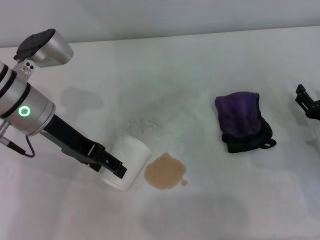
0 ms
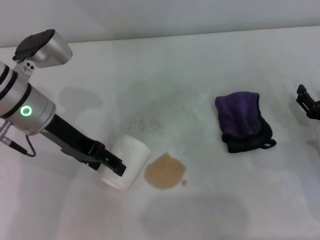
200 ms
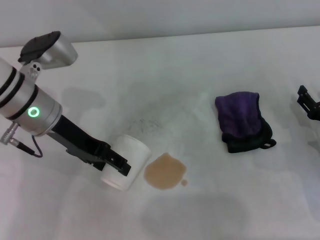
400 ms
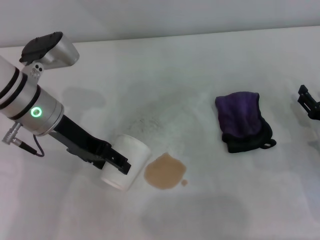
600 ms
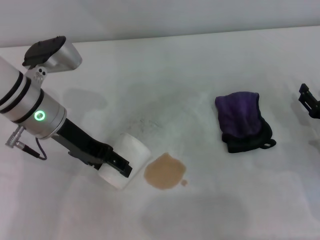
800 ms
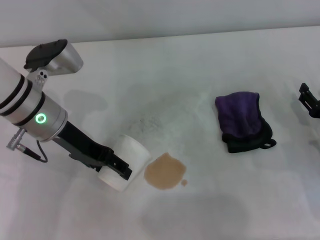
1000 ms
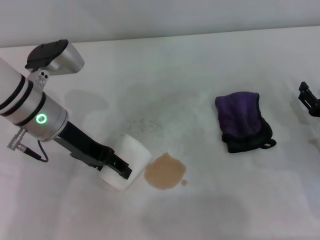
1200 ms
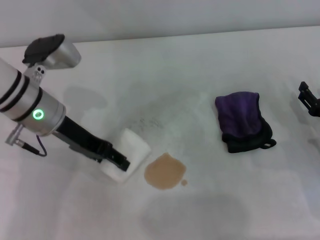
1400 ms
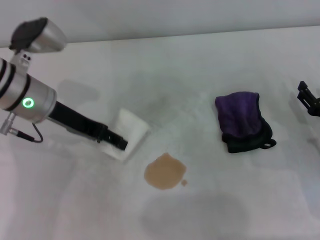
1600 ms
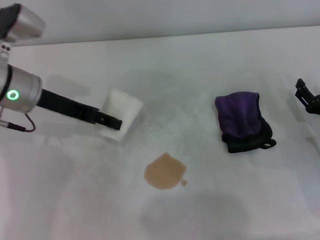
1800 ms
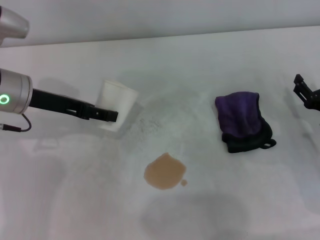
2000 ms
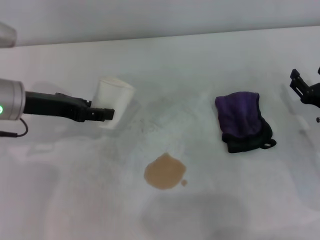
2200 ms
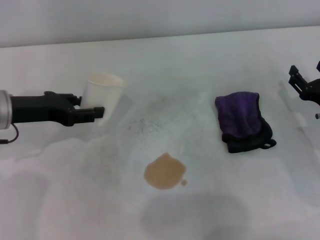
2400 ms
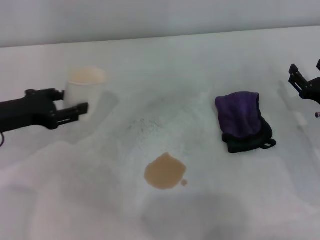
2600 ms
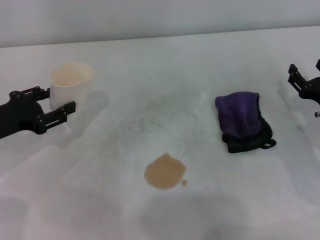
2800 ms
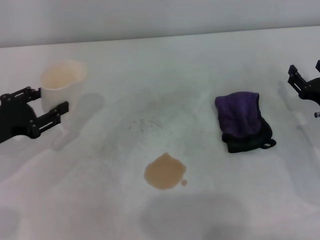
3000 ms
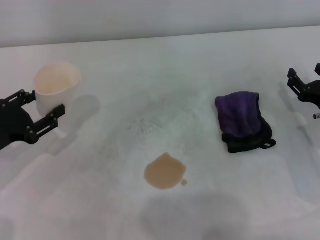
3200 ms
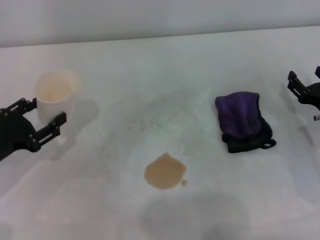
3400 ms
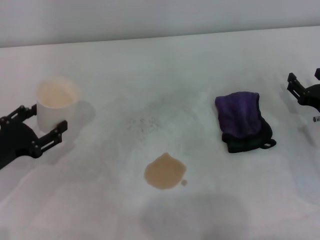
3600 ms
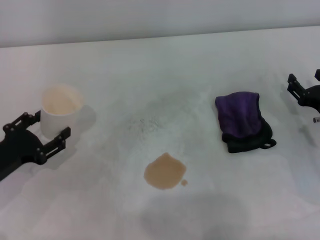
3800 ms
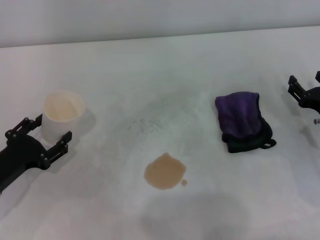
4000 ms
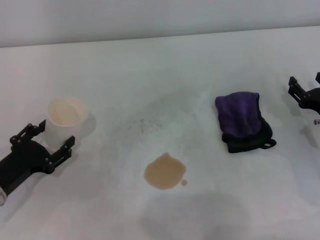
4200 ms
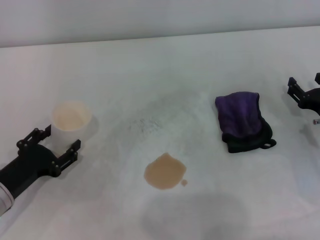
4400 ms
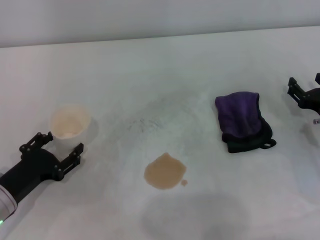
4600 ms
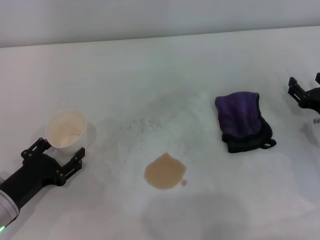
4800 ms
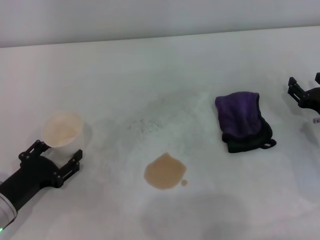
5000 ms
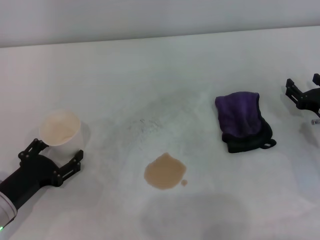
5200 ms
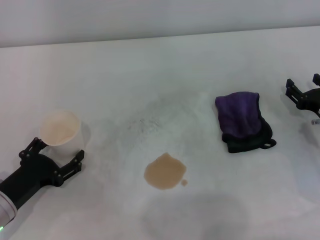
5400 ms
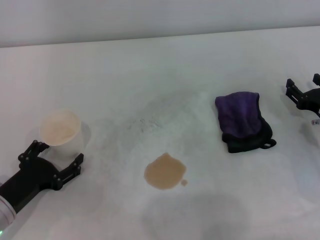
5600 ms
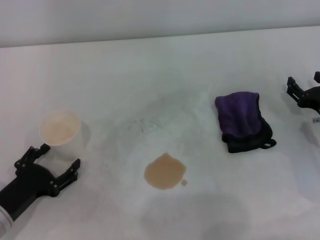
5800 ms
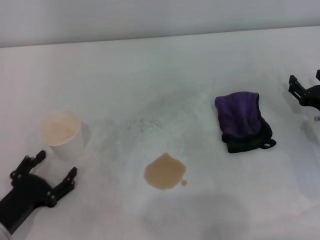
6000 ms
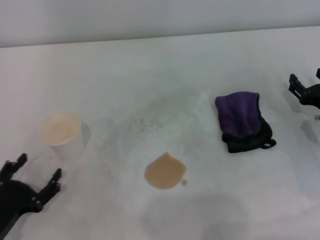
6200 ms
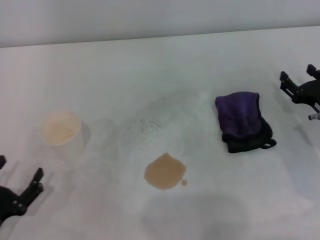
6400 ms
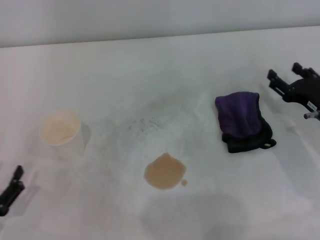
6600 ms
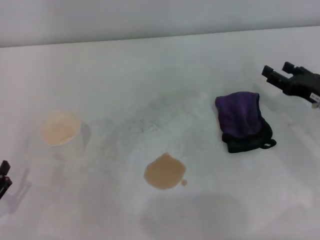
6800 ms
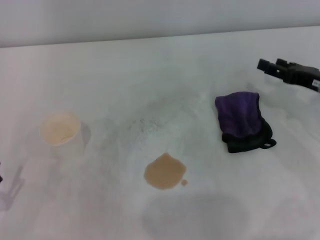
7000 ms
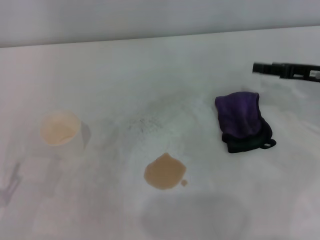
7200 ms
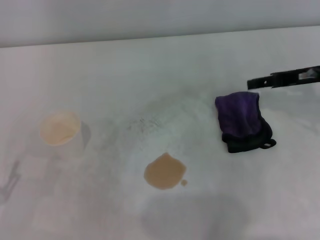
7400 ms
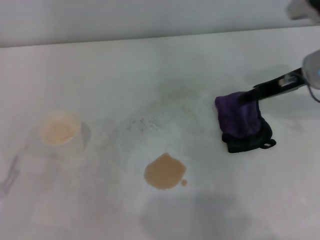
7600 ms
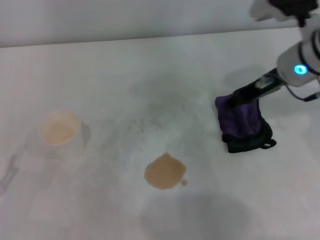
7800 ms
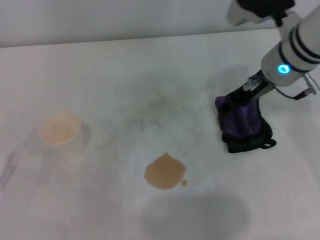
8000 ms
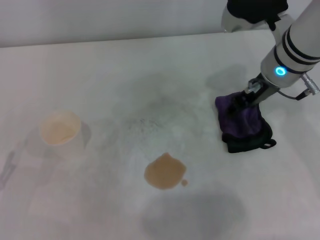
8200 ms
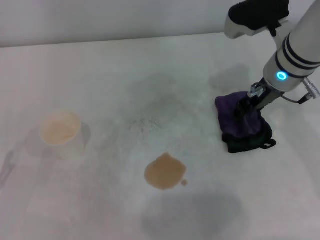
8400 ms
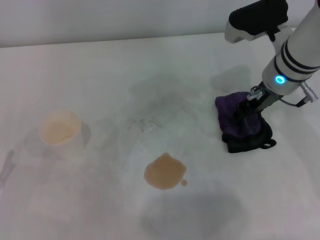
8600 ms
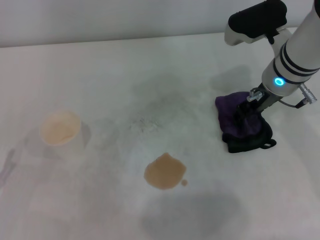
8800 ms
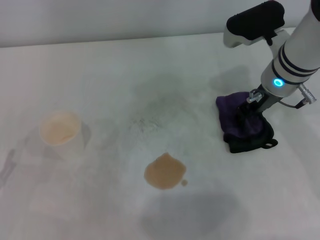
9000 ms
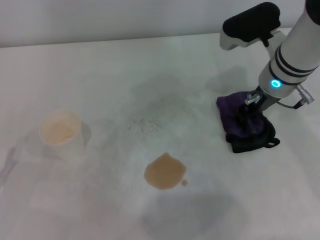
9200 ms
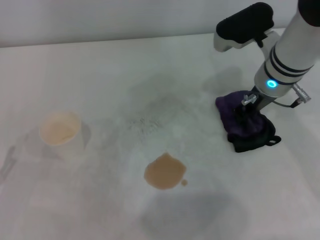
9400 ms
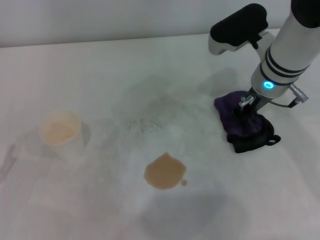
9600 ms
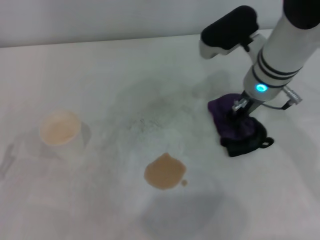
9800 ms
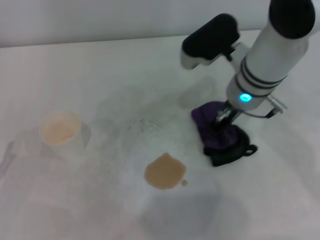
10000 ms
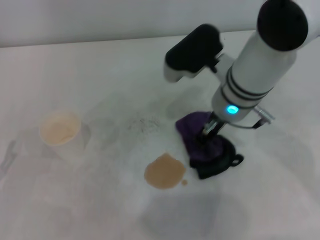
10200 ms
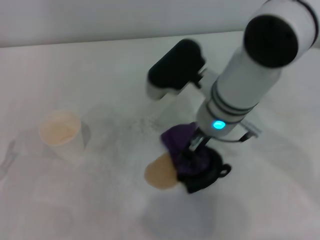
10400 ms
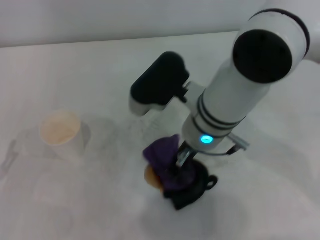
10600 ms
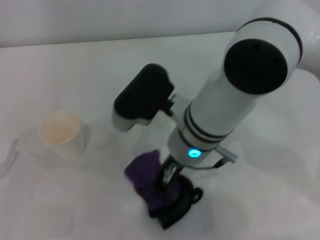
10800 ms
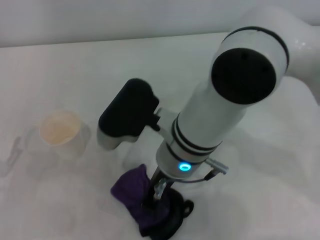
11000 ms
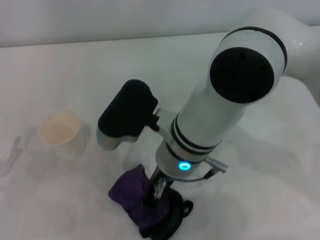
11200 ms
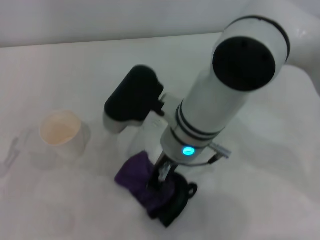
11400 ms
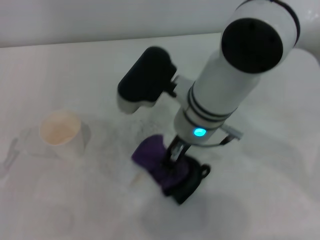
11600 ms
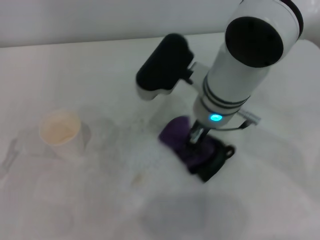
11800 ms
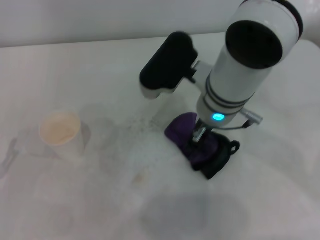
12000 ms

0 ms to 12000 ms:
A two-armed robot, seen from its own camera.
Step, 1200 ms to 5000 ms: Stand the paper cup upright with the left gripper.
Step, 5200 ms to 9400 ms: Grasp the rag with the right gripper.
0 ms to 1600 ms: The left gripper closes up.
1600 ms to 3000 ms: The left gripper is displaced to the left, backward and downward by approximately 15 cm.
3000 ms to 4400 ms: The left gripper shifts about 10 cm downward and backward, and opens.
4400 ms to 6000 ms: The left gripper travels backward by approximately 5 cm, and opens its fingers.
6000 ms to 7600 ms: The right gripper heads upward, forward and to the left, covering approximately 15 cm, while the left gripper goes approximately 5 cm to the left.
7600 ms to 9000 ms: The right gripper heads to the left, covering roughly 5 cm.
9000 ms to 10400 ms: The right gripper goes roughly 10 cm to the left and backward, and closes.

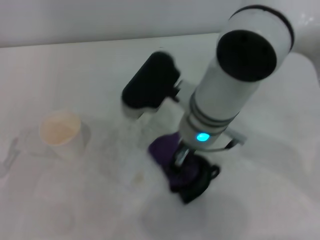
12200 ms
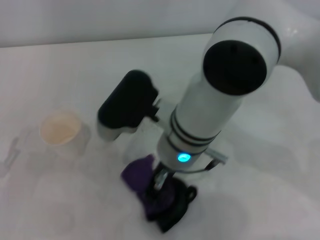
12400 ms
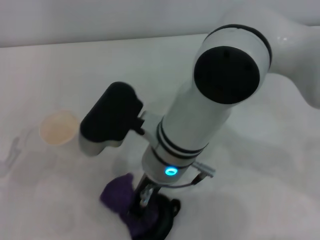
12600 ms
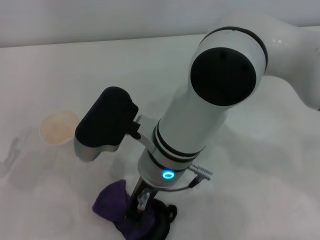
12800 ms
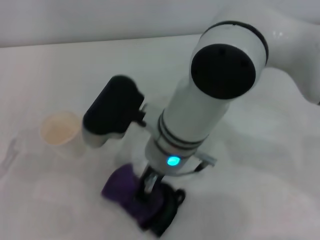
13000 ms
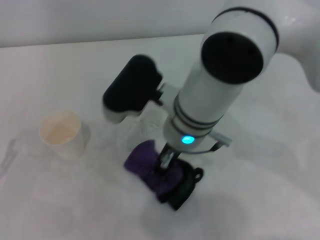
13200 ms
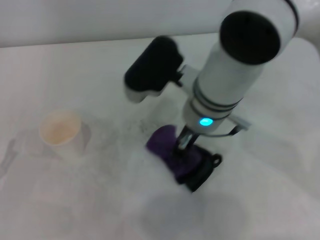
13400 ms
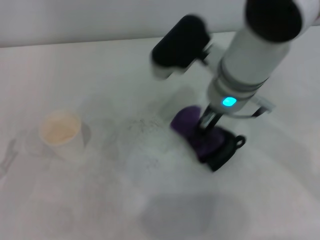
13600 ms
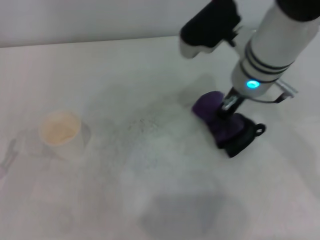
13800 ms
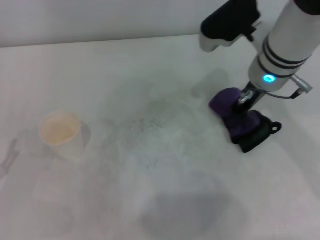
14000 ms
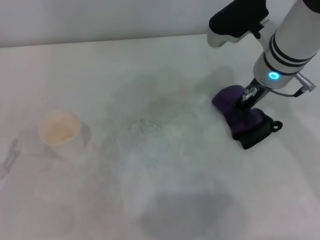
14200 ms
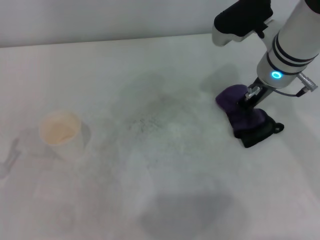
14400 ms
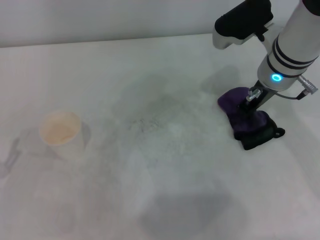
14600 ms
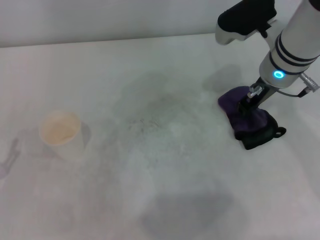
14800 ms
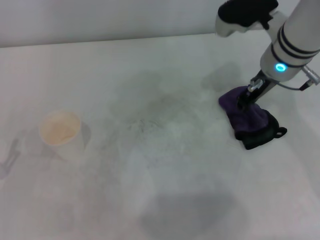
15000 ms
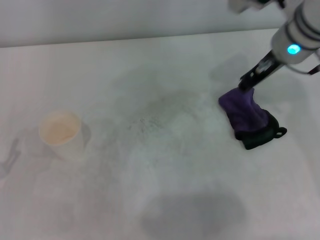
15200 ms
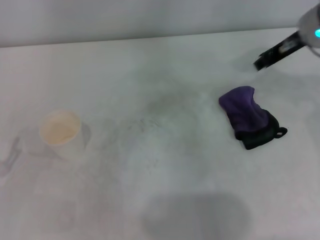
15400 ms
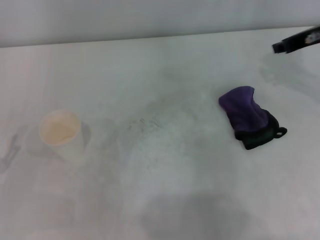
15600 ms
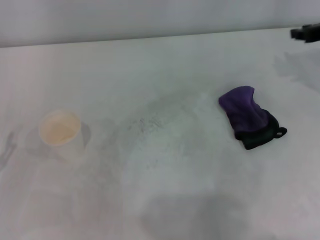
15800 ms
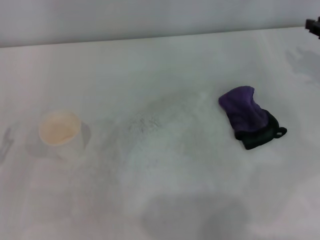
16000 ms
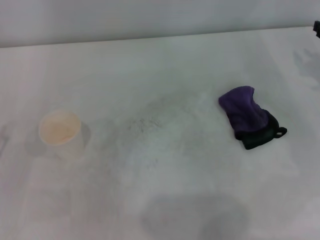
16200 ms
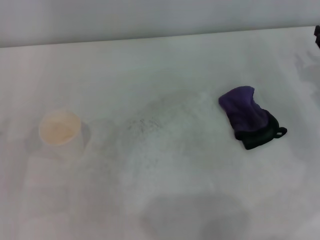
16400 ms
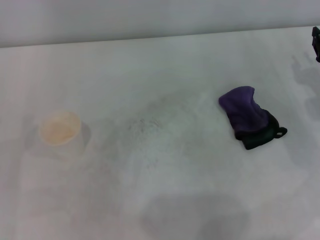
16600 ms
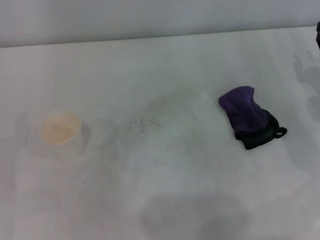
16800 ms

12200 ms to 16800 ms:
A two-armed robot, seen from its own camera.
Step, 14000 ms to 14800 ms: Place the rag on the table with the right gripper.
12200 ms to 13800 ms: The right gripper goes approximately 10 cm to the right.
13800 ms to 15200 ms: The right gripper moves to the right, about 5 cm.
15200 ms to 16800 ms: The right gripper goes some 20 cm to the right, downward and backward.

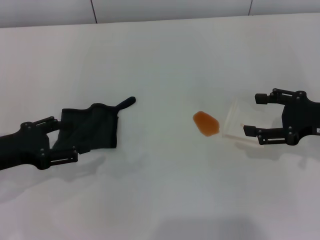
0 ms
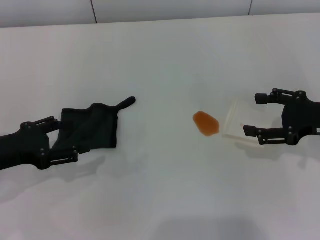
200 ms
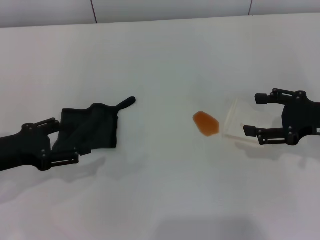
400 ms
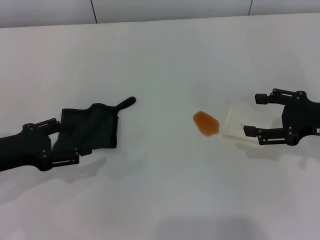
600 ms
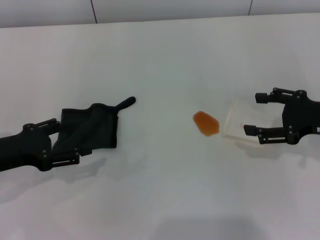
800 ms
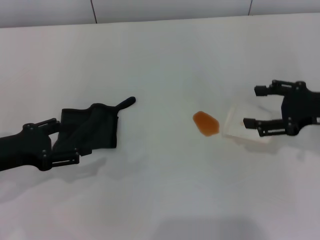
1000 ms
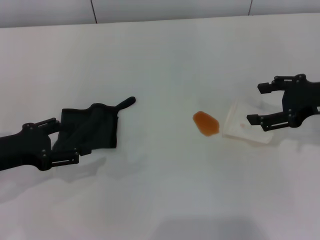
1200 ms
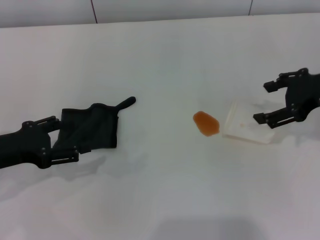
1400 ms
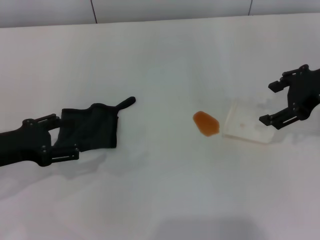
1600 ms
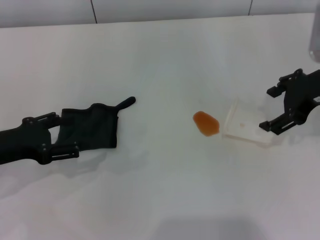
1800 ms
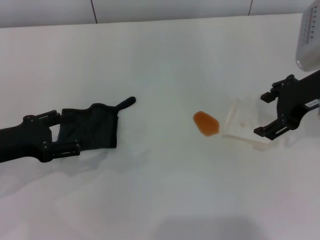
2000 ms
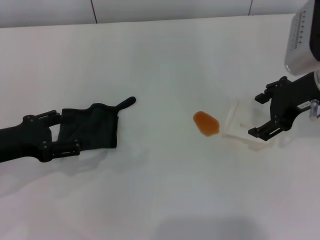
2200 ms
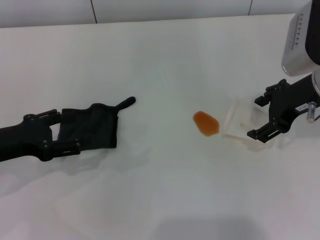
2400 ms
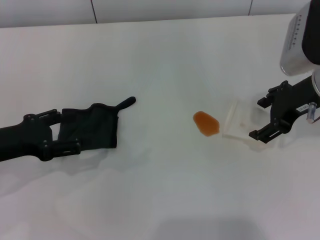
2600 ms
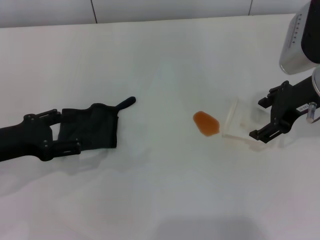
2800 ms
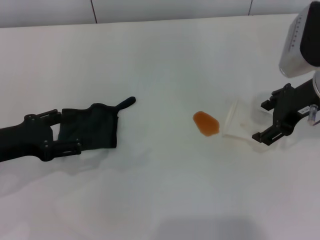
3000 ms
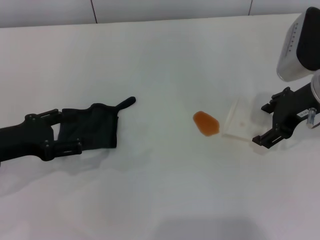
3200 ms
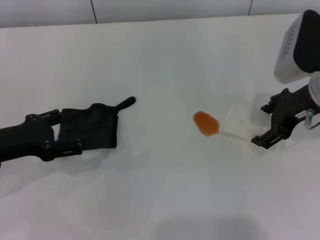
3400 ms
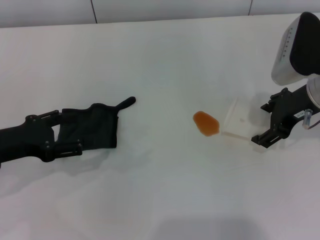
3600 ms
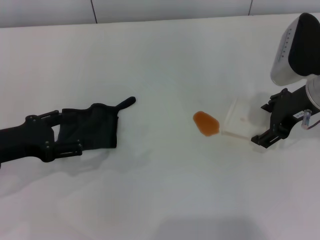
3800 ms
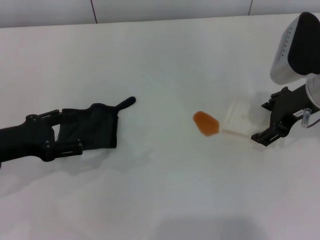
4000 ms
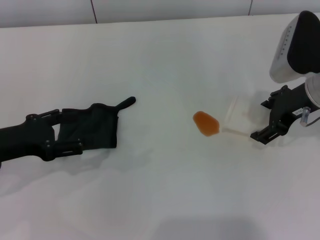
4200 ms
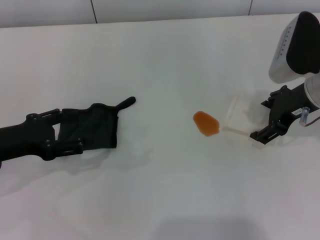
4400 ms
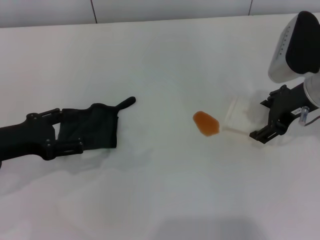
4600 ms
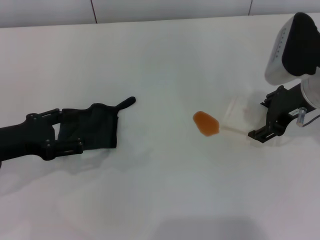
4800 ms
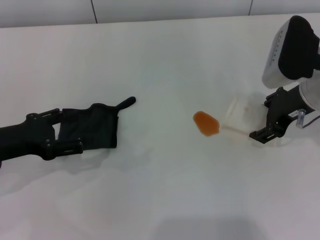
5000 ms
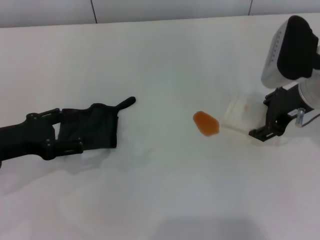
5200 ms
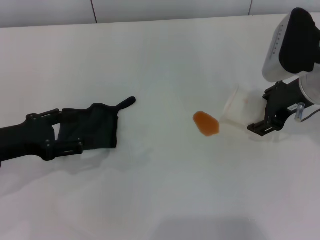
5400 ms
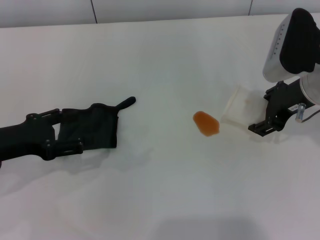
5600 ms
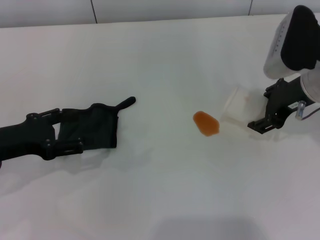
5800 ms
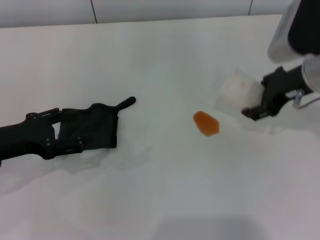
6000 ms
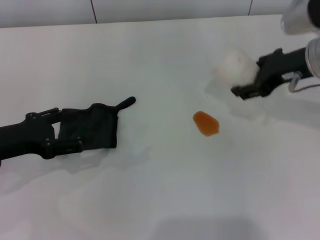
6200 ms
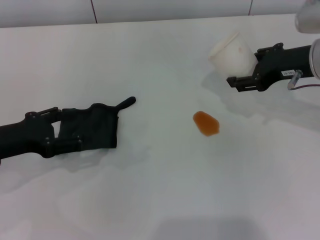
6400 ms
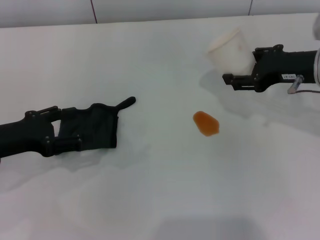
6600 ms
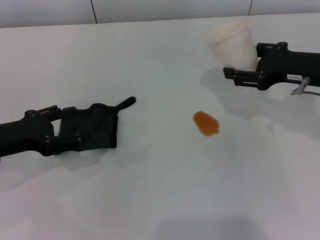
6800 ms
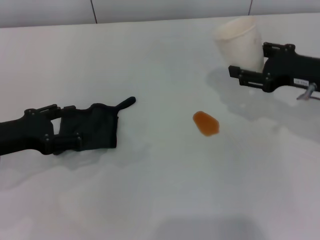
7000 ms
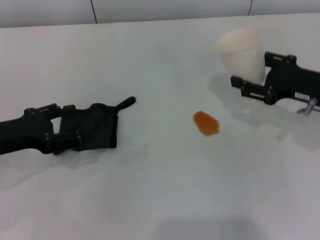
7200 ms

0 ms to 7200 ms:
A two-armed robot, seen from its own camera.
Step, 0 ms to 5000 ms: Grasp the paper cup with the right gripper.
0 ms to 1400 ms: The right gripper goes roughly 5 cm upward.
1400 ms to 2800 ms: The right gripper is displaced to the left by roughly 5 cm.
2800 ms to 4400 ms: The grippers make only small movements.
4400 ms to 5800 ms: The right gripper closes its fingers.
5800 ms to 7200 ms: The right gripper shifts some 5 cm to the right.
